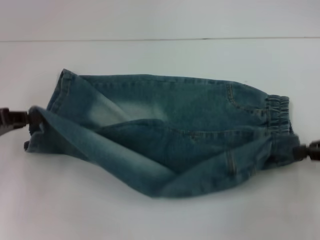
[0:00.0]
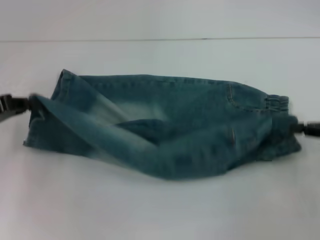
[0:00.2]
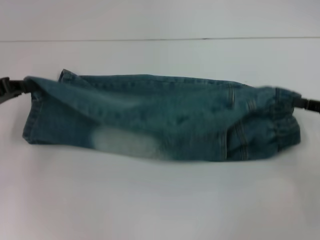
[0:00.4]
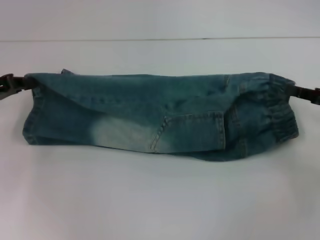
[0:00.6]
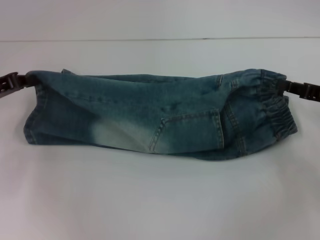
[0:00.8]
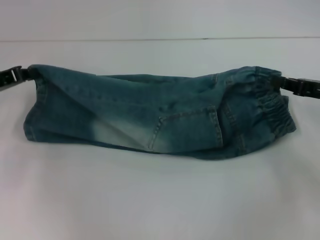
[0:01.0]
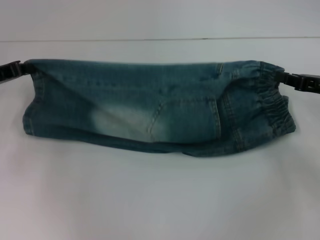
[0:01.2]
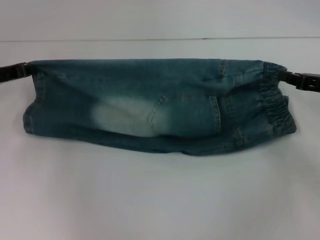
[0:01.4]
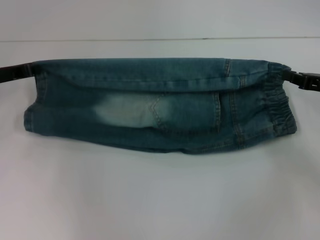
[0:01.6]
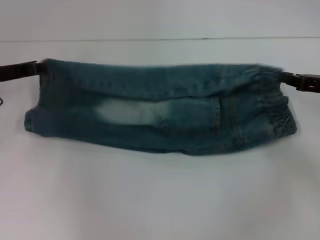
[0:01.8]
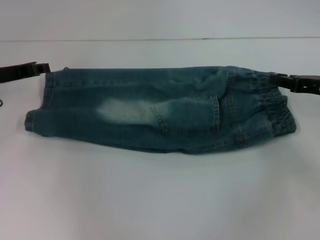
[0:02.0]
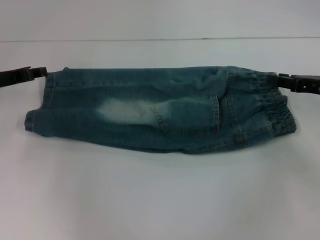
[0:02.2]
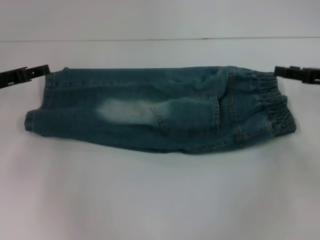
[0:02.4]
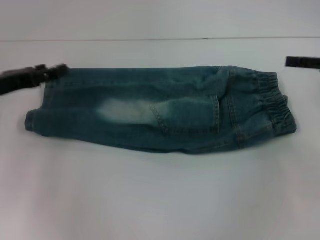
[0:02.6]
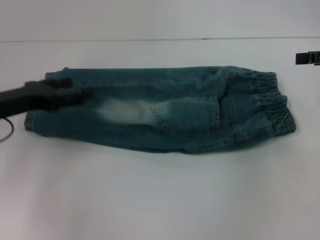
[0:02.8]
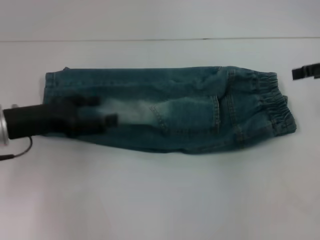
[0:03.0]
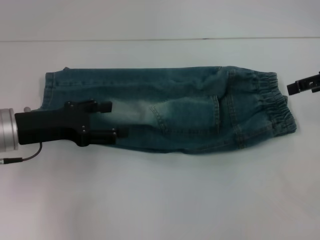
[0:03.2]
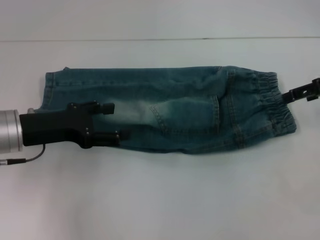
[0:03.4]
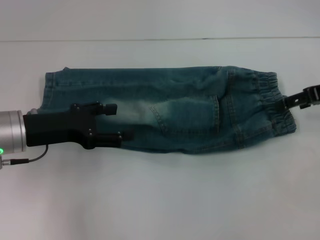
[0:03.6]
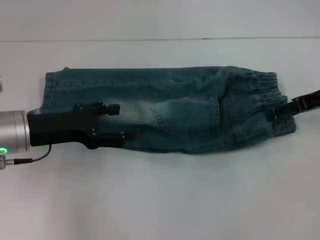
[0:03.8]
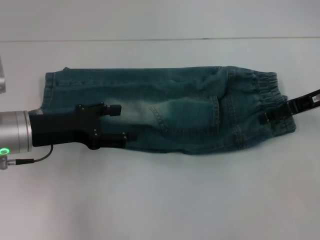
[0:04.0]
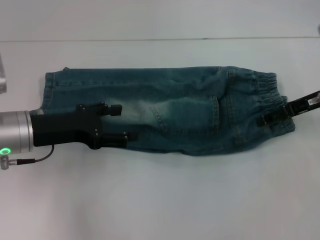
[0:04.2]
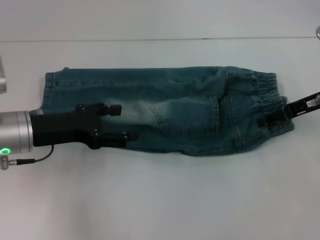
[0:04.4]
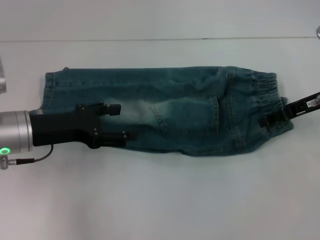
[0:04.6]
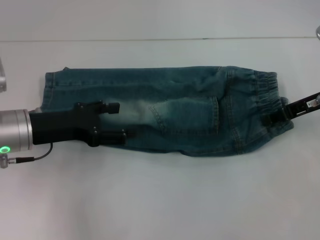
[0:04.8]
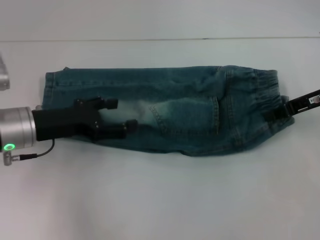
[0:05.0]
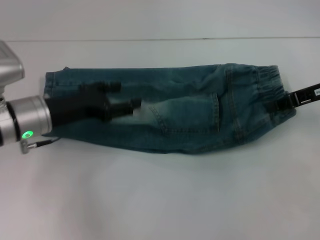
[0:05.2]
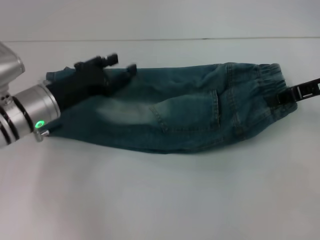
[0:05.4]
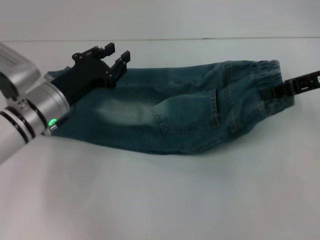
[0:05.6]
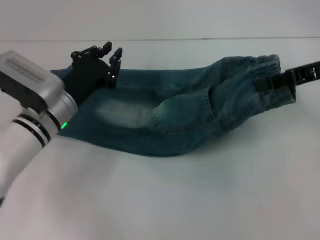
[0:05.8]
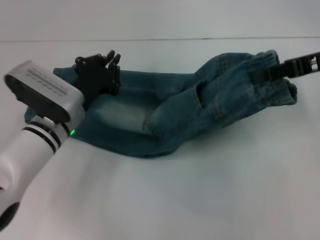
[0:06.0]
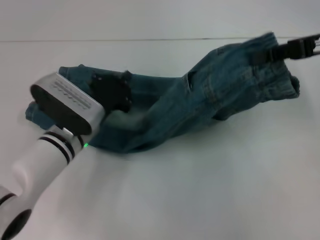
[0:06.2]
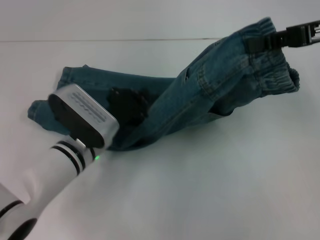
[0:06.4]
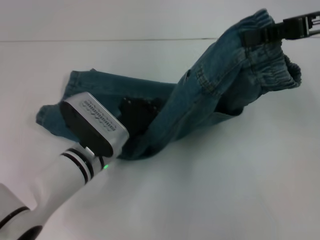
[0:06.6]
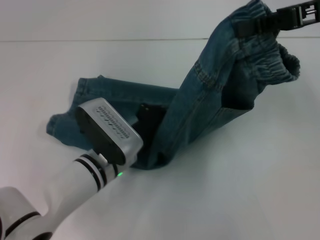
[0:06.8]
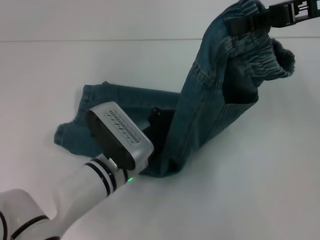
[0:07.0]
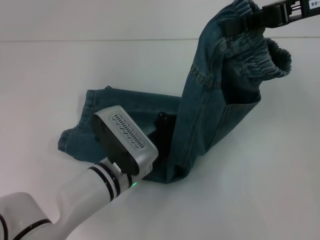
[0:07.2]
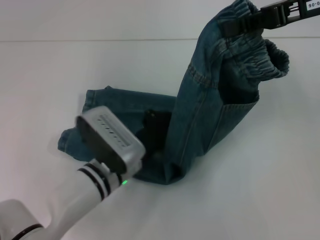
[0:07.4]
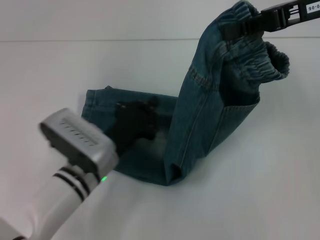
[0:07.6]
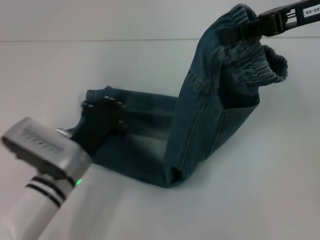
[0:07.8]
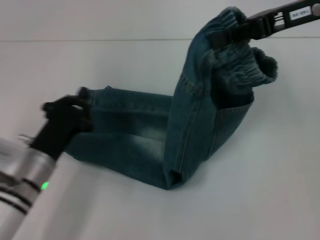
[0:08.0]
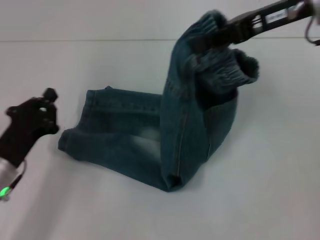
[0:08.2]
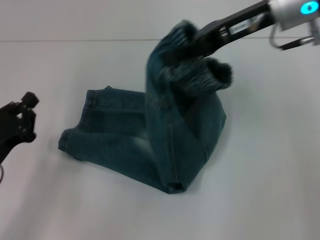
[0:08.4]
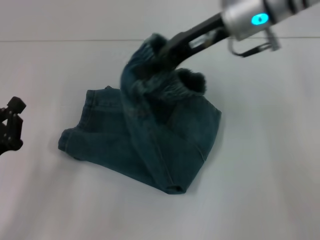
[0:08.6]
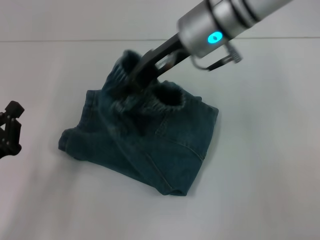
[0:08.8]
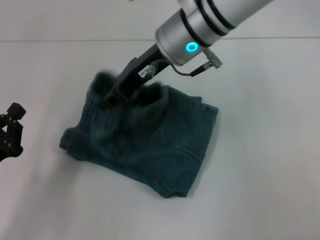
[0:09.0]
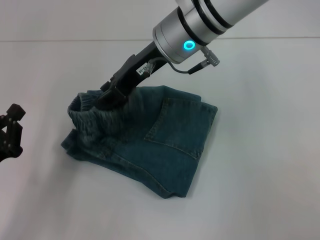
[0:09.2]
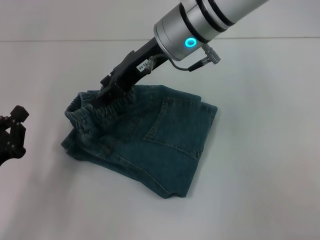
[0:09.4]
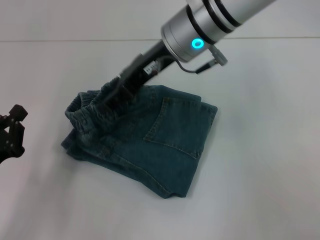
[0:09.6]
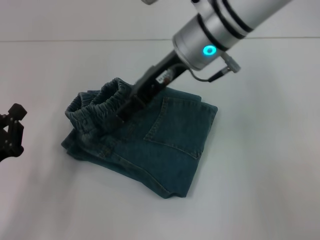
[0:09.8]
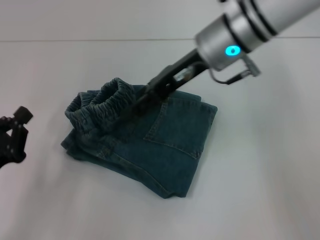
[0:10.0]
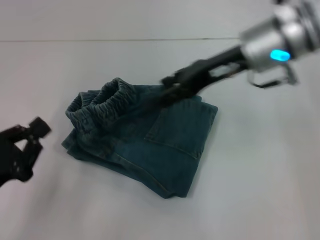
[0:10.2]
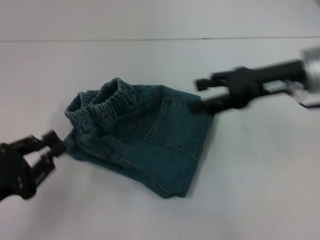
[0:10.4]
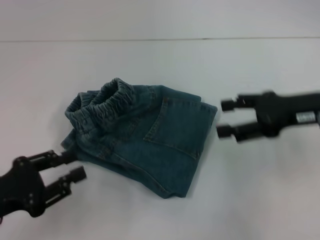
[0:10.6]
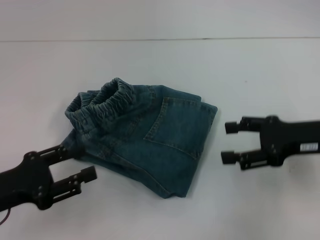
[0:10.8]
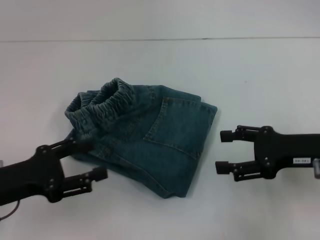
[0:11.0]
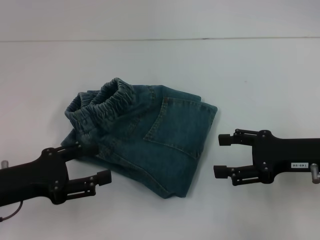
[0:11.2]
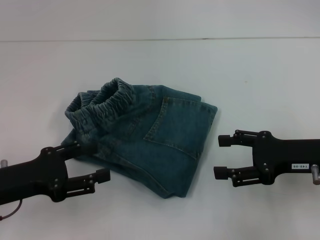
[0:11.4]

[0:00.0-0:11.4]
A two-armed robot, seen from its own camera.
Step, 0:00.0 to 0:02.2: Fold upward with your right hand.
Step, 0:02.4 to 0:04.2: Grab the waistband with your right hand.
Step, 0:04.4 to 0:07.4: Press the middle of the pants with your left hand.
Step, 0:07.6 to 0:09.4: Fold to the left with your right hand.
0:00.0 to 0:01.4: Both grippers travel together forward, roughly 10 cm.
0:01.4 to 0:02.8: The left gripper shifts some 5 cm backward, and opens its fingers. The right gripper is displaced upward by some 10 cm, and opens.
0:02.8 to 0:04.2: The right gripper shifts roughly 10 cm to the left and downward. Meanwhile the left gripper moves to the right, approximately 5 cm.
0:04.2 to 0:05.6: The left gripper changes place by roughly 5 cm. Meanwhile the right gripper closes.
0:05.6 to 0:07.2: The right gripper is displaced upward by about 10 cm. Meanwhile the left gripper heads to the right, backward and downward, covering some 15 cm, and closes.
0:07.2 to 0:08.6: The grippers both shift to the left by roughly 20 cm.
0:08.6 to 0:10.0: The right gripper opens.
0:10.0 to 0:11.4: The left gripper shifts by roughly 5 cm, and opens. The right gripper shifts roughly 25 cm to the right, backward and downward.

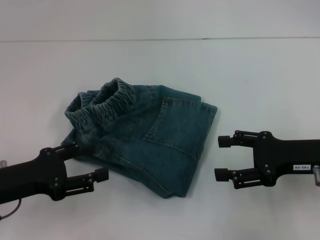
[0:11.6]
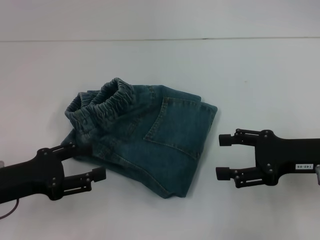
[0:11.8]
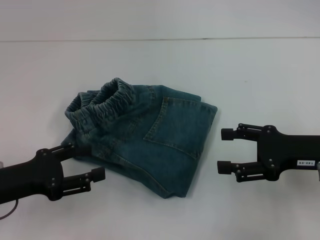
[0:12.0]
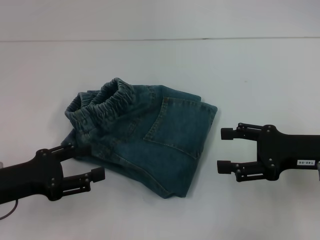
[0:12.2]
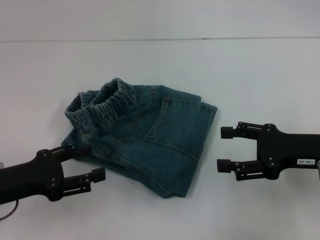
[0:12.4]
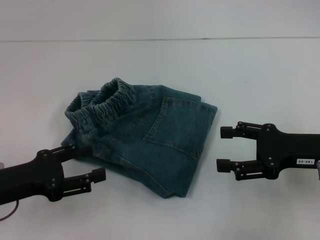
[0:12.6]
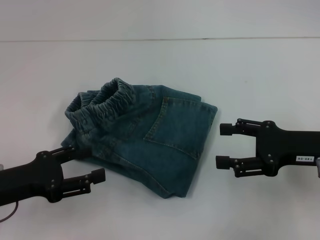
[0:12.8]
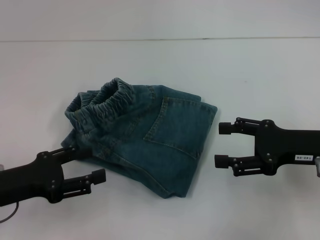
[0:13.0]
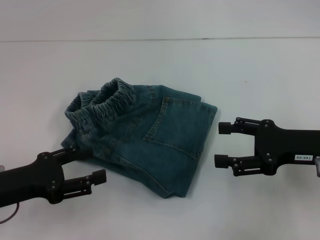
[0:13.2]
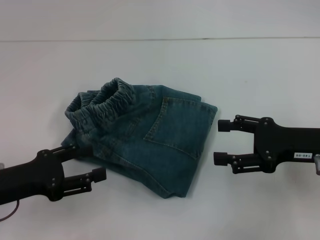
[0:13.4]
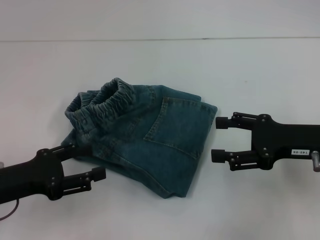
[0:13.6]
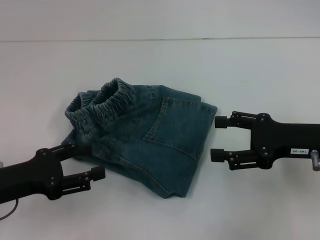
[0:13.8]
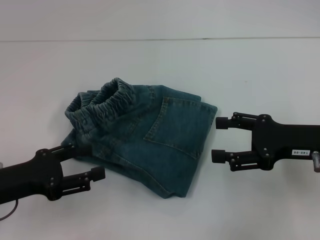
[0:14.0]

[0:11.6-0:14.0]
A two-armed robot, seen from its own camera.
0:11.6 to 0:12.8: Neither gripper changes place.
0:12.8 to 0:14.0: Both grippers stay about where they are.

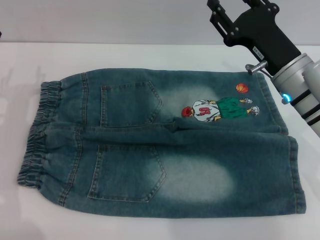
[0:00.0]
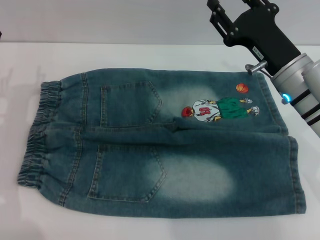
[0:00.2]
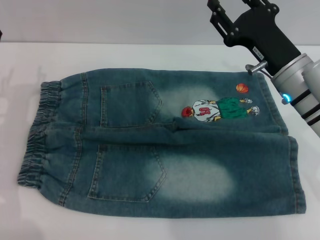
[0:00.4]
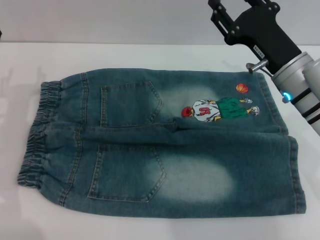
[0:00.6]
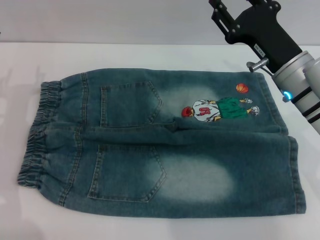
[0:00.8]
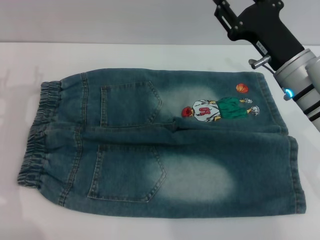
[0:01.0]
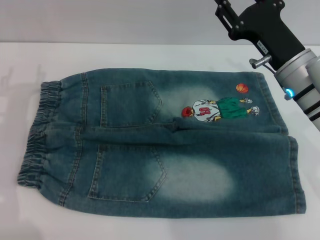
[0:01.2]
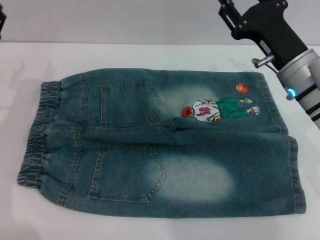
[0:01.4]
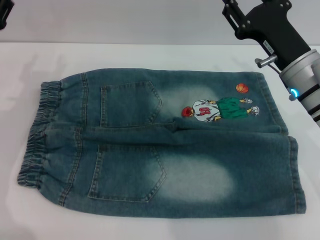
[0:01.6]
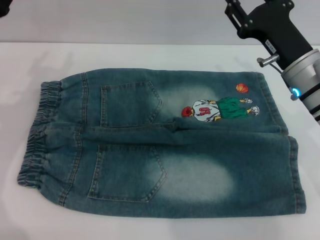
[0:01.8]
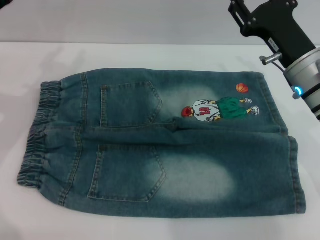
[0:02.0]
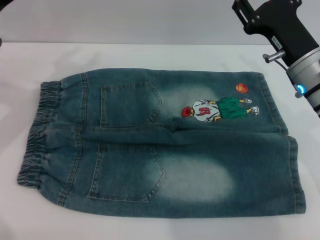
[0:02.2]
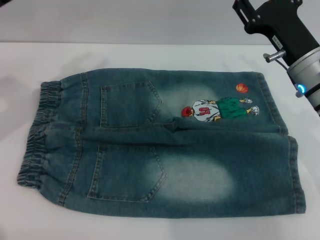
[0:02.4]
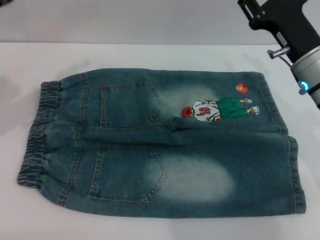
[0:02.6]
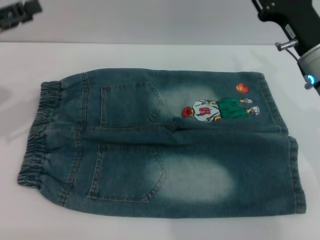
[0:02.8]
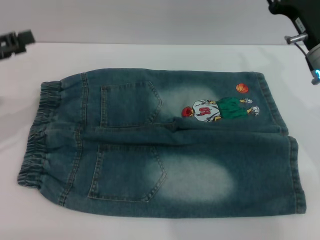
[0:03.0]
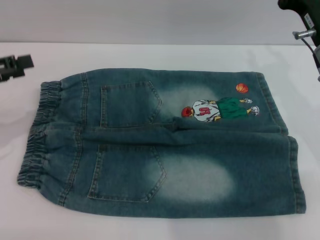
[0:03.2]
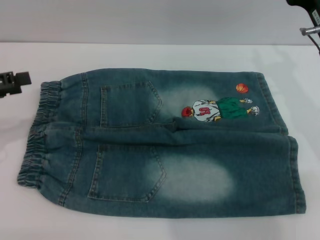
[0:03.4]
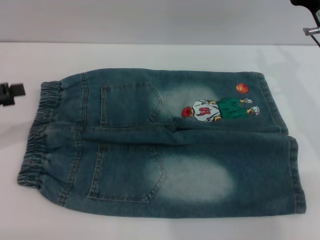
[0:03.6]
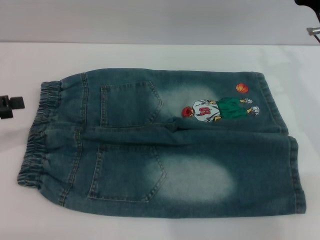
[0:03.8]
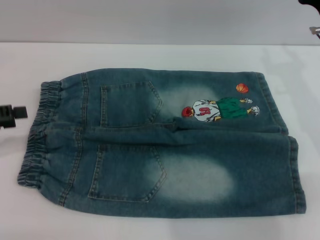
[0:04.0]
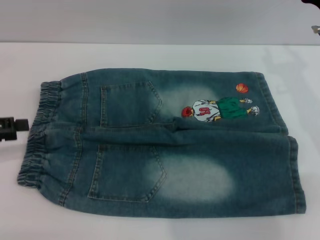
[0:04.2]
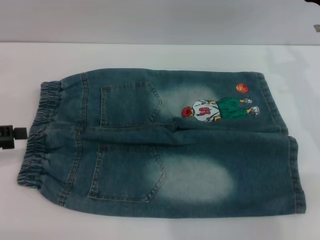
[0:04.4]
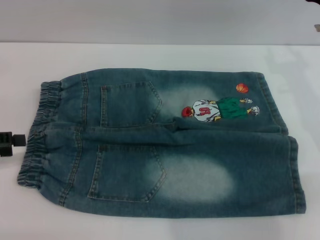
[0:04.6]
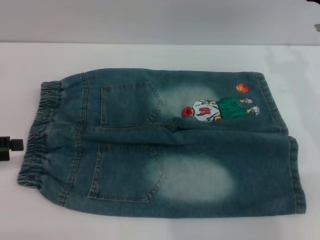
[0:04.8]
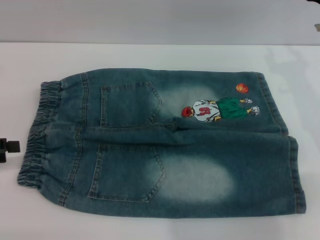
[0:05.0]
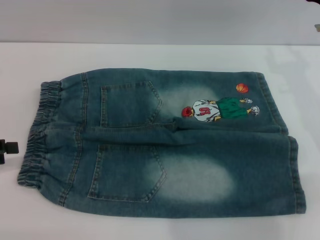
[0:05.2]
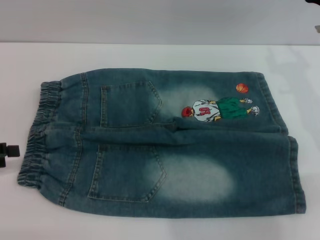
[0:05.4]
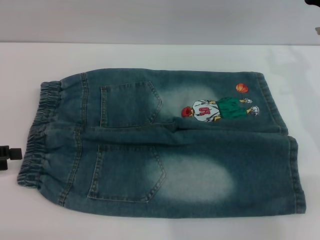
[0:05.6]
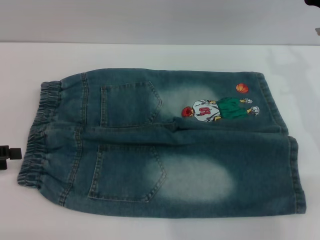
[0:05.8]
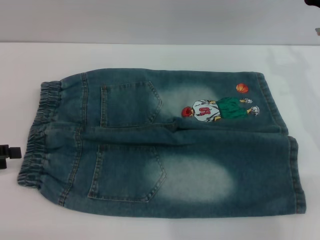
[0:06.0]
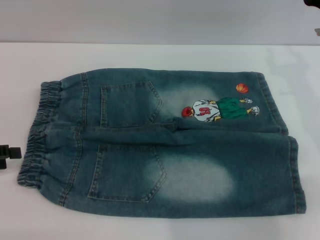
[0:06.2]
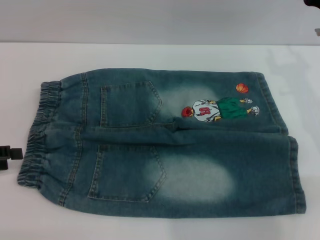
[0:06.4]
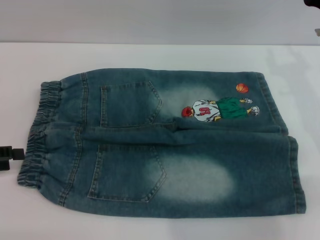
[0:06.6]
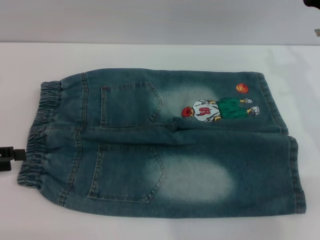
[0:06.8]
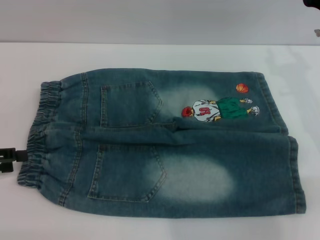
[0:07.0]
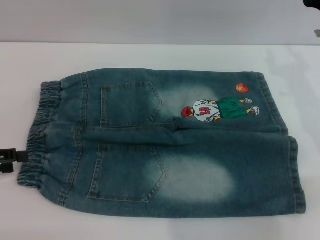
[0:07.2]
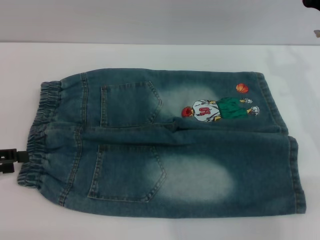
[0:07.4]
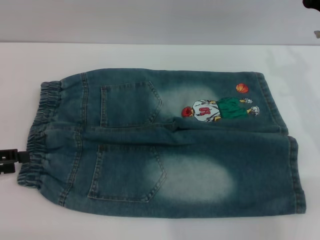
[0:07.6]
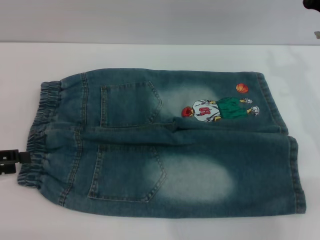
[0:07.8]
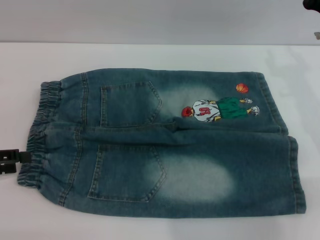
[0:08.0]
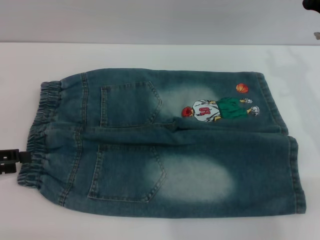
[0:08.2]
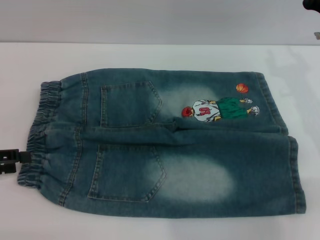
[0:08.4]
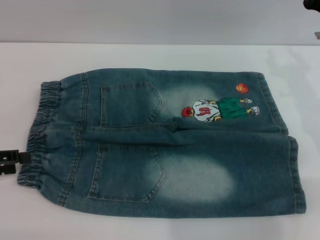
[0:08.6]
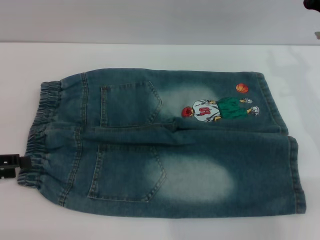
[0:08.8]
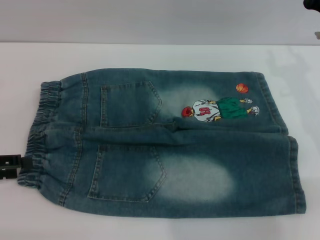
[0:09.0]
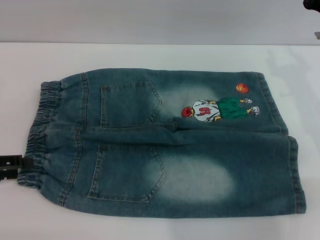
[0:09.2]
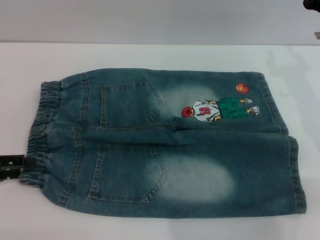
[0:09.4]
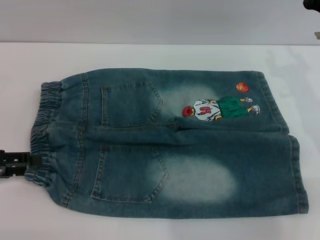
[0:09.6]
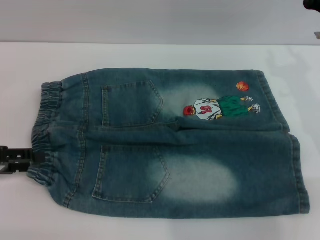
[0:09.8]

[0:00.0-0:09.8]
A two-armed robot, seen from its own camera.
0:00.0 to 0:01.4: The grippers stay close to where they were, moving slightly.
0:01.4 to 0:02.8: The left gripper shifts some 10 cm upward and to the left.
0:02.8 to 0:04.2: The left gripper moves backward, about 5 cm.
0:04.2 to 0:05.6: There are only small adjustments of the grippers.
0:05.6 to 0:07.0: Both grippers stay put.
0:07.0 to 0:08.4: The two grippers keep their place.
0:08.4 to 0:09.8: The grippers stay close to where they were, moving slightly.
